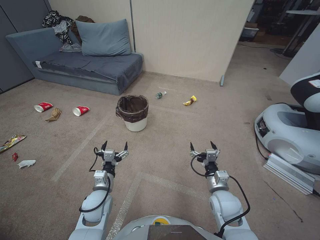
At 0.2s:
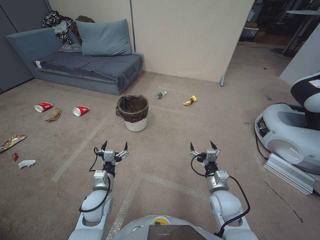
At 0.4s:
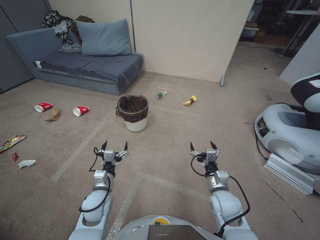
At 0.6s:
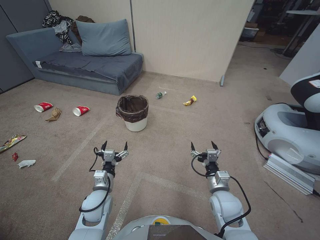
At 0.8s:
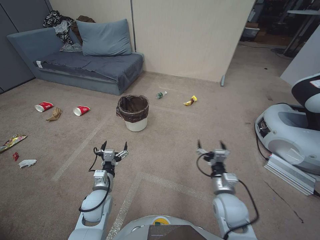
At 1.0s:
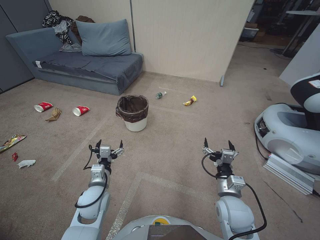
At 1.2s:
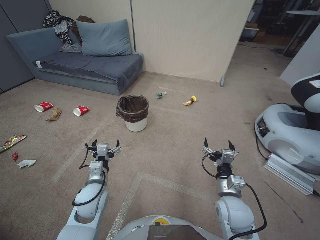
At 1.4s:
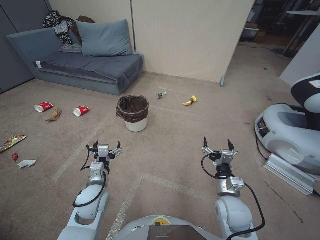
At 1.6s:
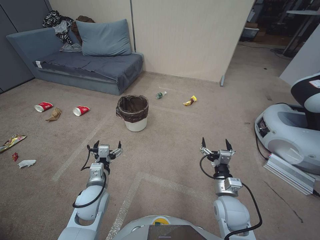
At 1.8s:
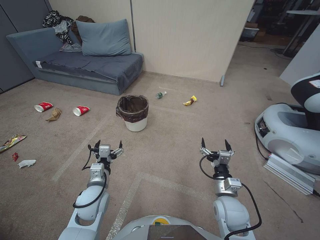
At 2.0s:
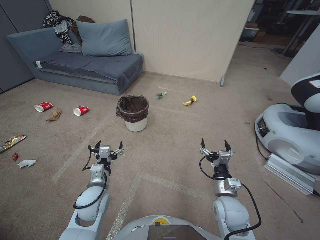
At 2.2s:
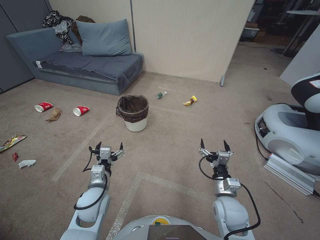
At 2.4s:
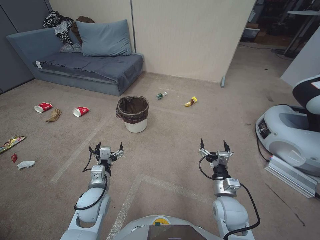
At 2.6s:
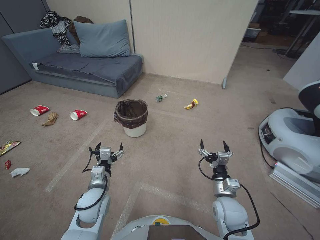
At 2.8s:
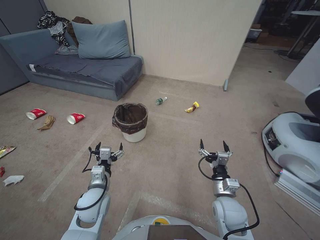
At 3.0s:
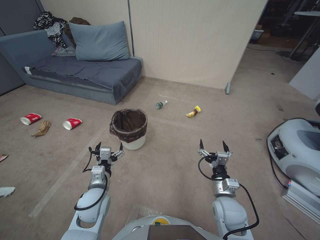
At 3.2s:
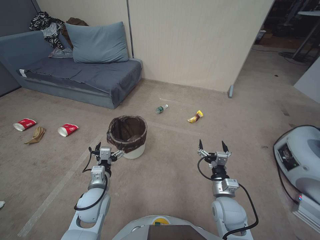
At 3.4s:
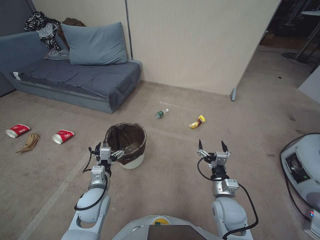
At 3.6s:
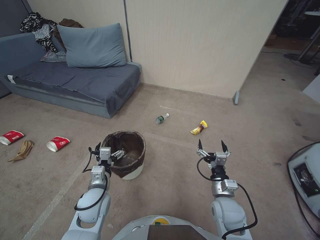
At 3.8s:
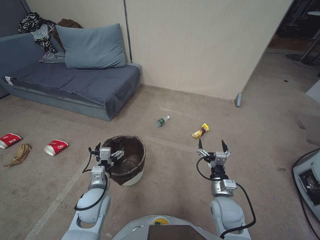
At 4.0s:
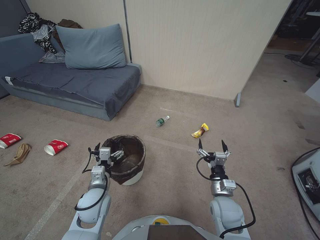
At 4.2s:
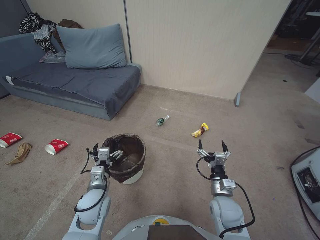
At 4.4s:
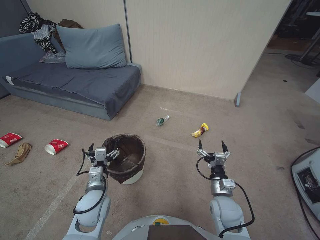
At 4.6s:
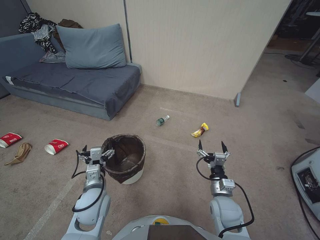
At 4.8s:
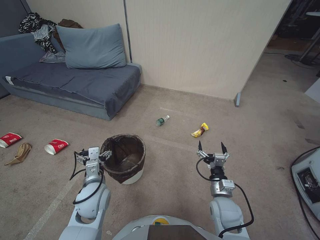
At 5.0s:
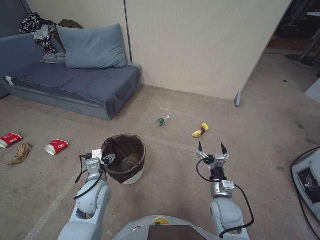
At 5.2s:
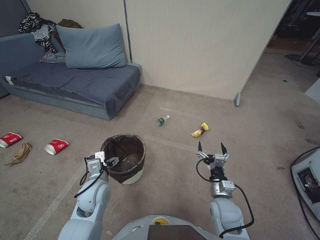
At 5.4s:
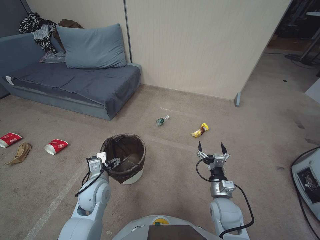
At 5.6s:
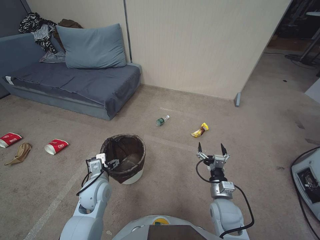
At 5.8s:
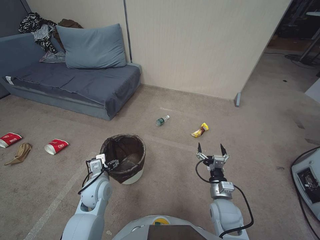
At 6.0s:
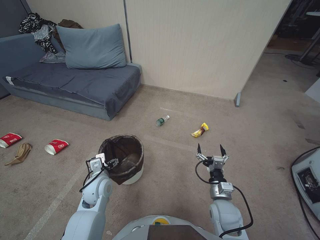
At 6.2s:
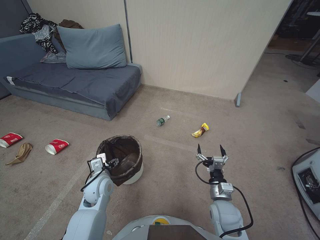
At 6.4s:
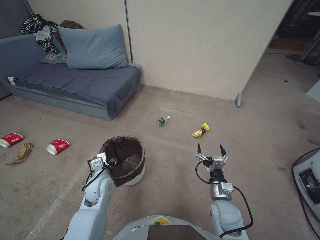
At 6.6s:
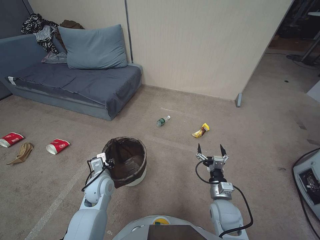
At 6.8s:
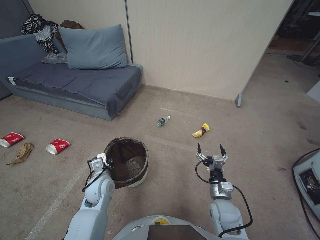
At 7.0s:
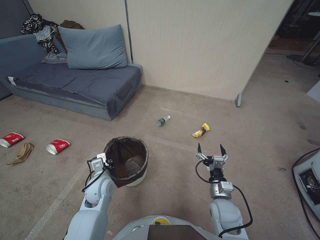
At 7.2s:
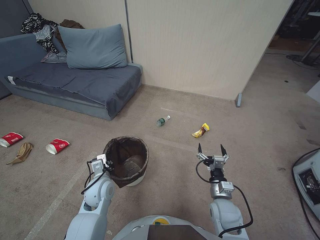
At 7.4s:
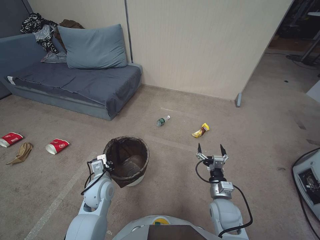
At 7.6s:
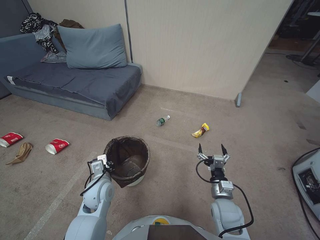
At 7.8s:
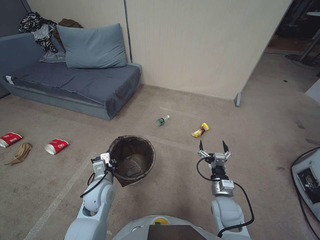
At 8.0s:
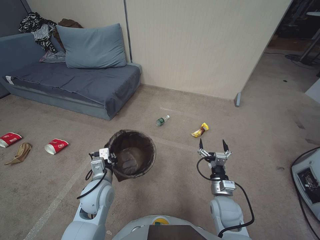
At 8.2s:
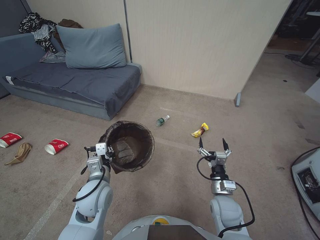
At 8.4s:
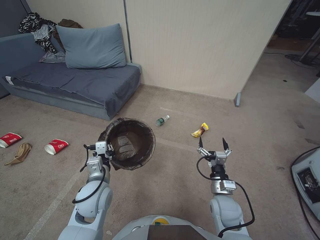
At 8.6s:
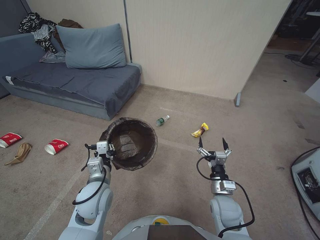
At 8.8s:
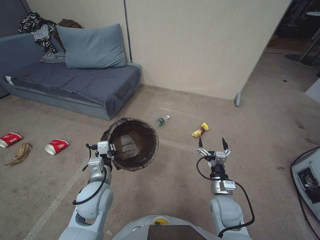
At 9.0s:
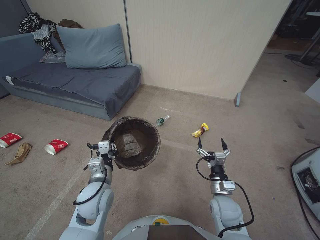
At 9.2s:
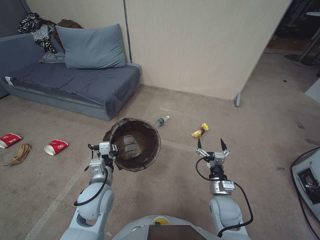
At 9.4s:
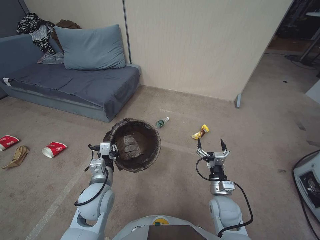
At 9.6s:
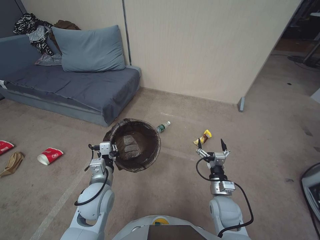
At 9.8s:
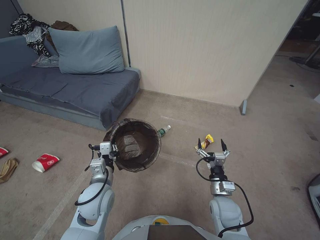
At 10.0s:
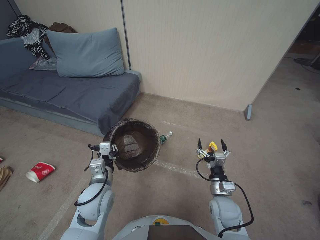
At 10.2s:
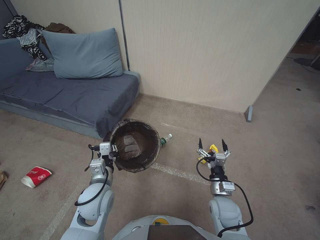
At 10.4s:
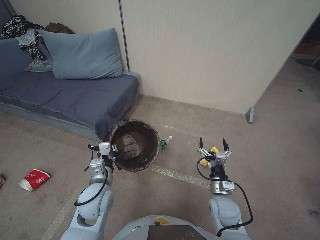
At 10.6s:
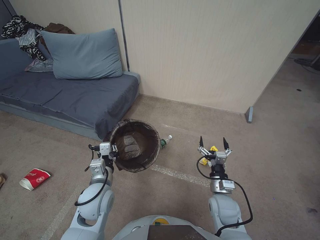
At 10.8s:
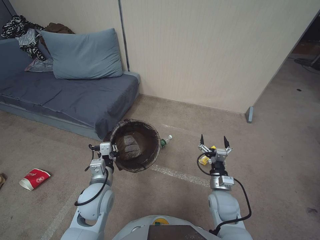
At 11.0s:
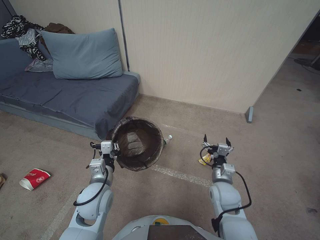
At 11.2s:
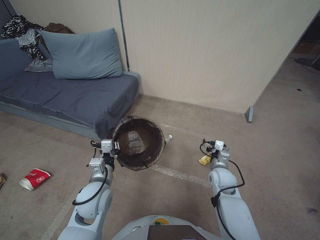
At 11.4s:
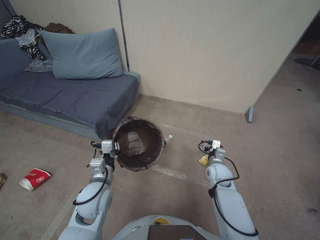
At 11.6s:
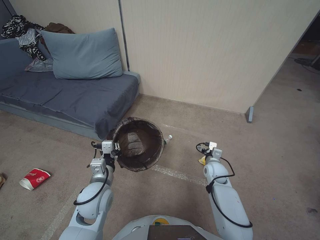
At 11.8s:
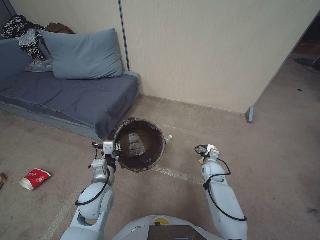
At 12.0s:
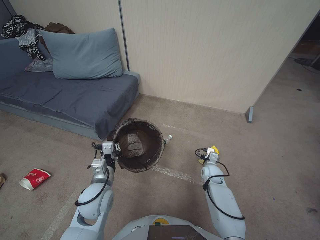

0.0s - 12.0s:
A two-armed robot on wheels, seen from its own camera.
Task of the whole recording: Pick up the trash bin, then pick up the garbage from the floor and place it into the trash bin.
4.4s - 6.0s: The left gripper travels forward by approximately 5 cm.
6.0s - 7.6s: The left gripper closes.
7.6s - 9.0s: The left gripper shifts approximately 5 cm upward.
10.4s - 12.0s: The right gripper travels forward and downward by about 15 cm.

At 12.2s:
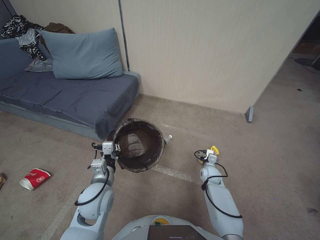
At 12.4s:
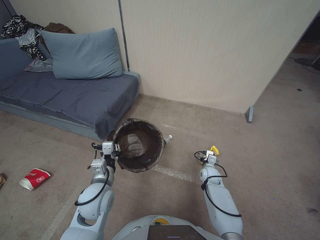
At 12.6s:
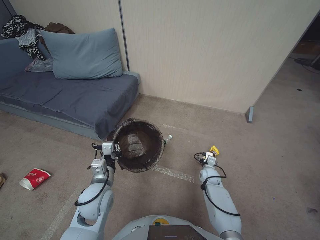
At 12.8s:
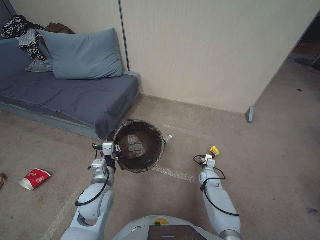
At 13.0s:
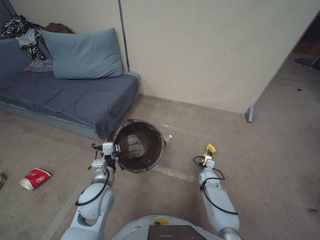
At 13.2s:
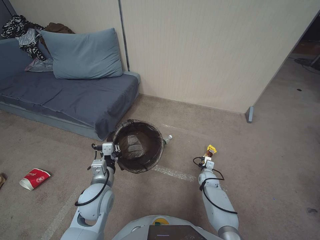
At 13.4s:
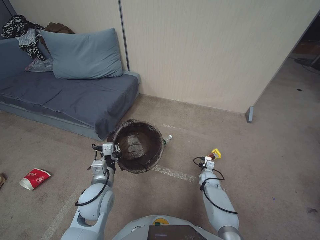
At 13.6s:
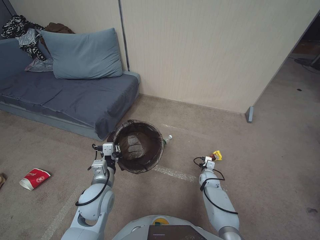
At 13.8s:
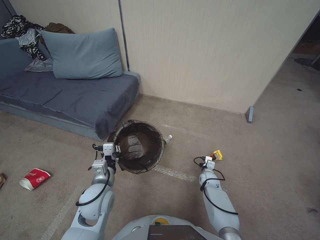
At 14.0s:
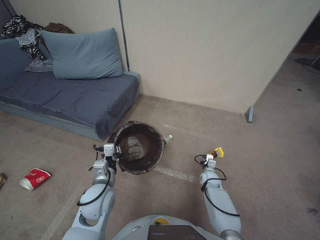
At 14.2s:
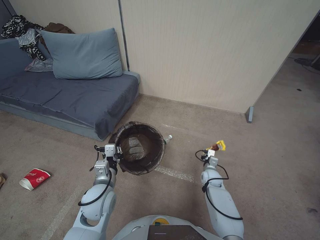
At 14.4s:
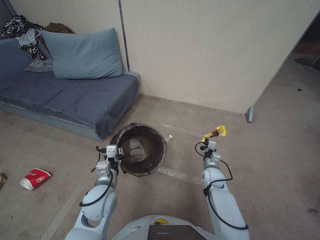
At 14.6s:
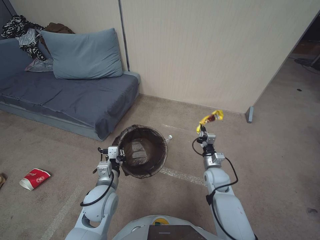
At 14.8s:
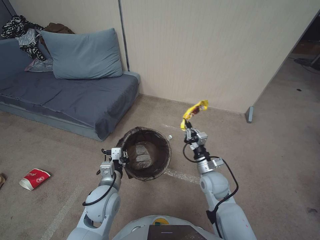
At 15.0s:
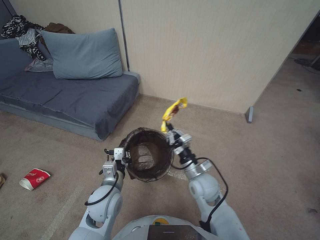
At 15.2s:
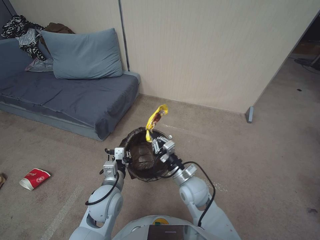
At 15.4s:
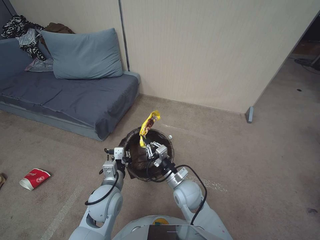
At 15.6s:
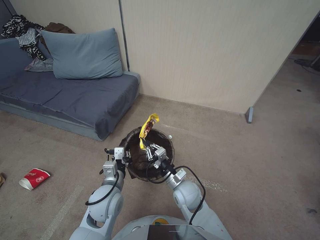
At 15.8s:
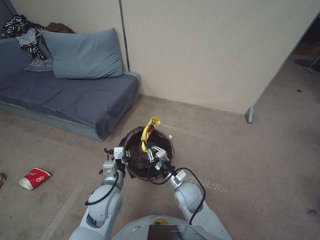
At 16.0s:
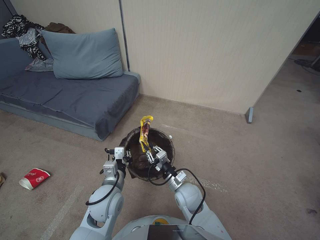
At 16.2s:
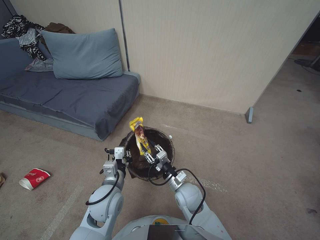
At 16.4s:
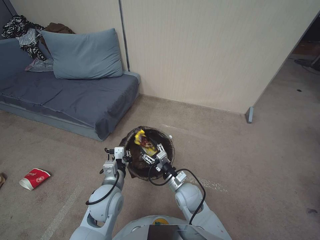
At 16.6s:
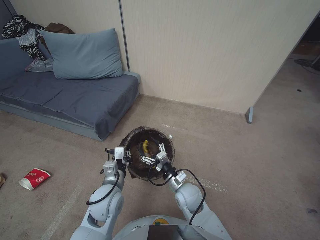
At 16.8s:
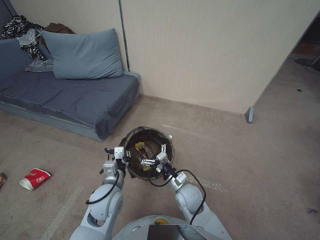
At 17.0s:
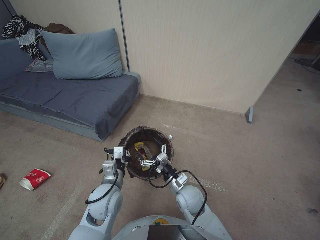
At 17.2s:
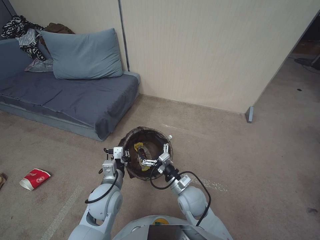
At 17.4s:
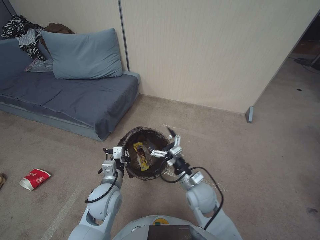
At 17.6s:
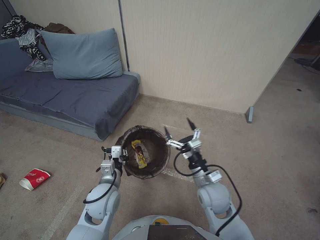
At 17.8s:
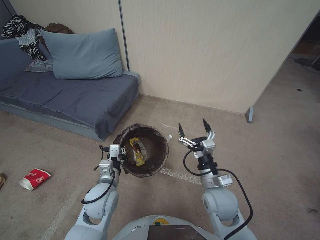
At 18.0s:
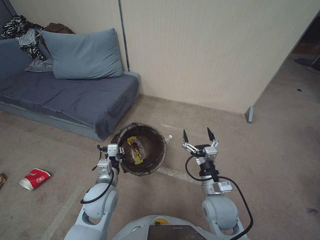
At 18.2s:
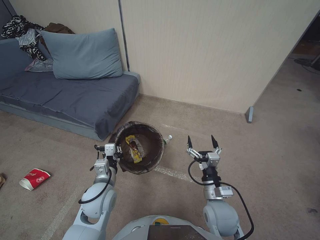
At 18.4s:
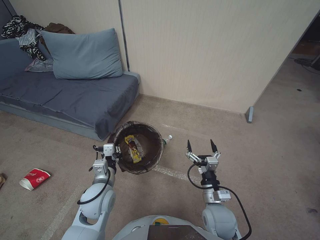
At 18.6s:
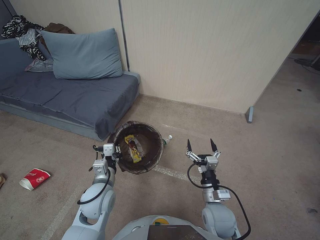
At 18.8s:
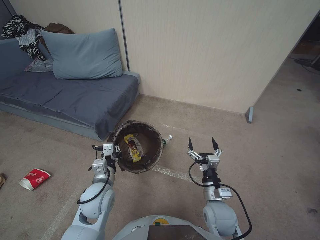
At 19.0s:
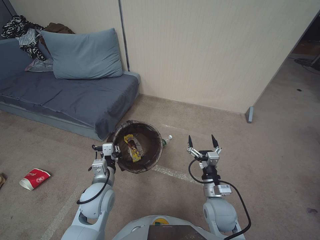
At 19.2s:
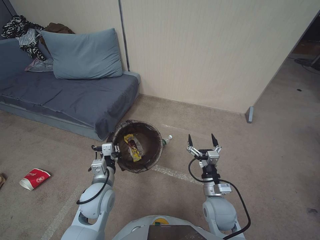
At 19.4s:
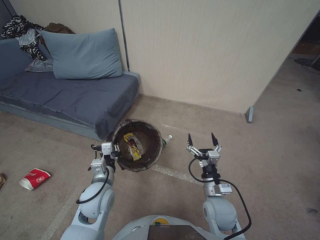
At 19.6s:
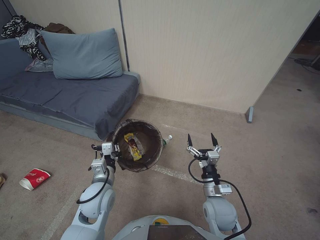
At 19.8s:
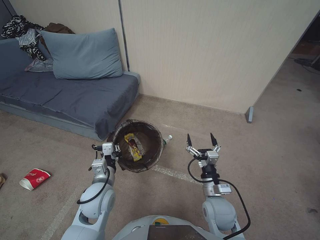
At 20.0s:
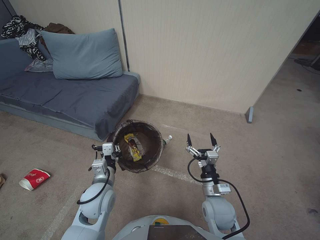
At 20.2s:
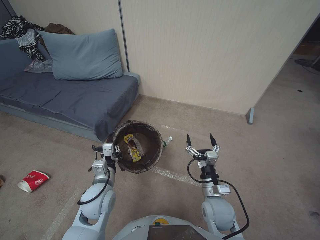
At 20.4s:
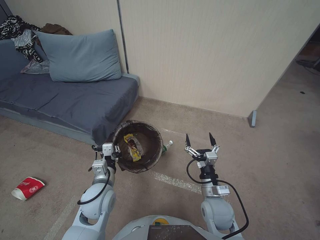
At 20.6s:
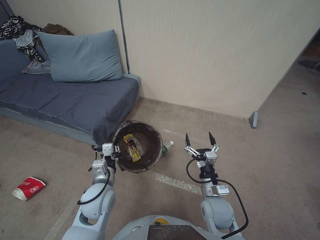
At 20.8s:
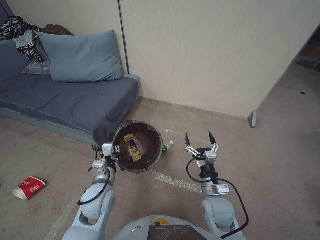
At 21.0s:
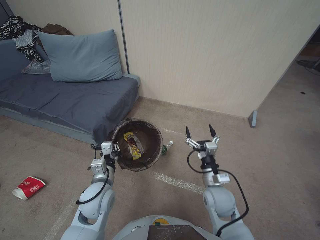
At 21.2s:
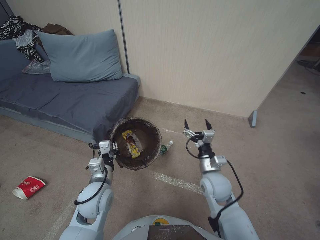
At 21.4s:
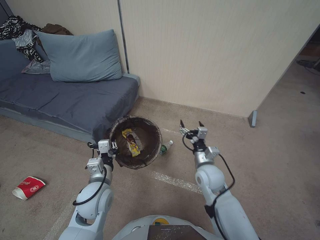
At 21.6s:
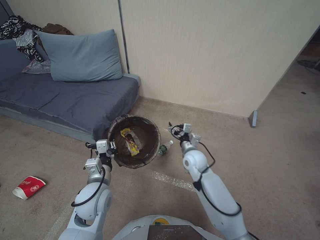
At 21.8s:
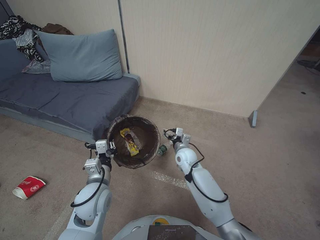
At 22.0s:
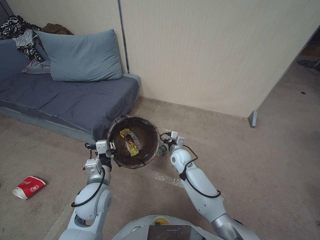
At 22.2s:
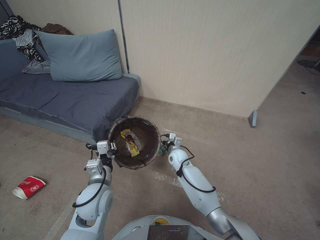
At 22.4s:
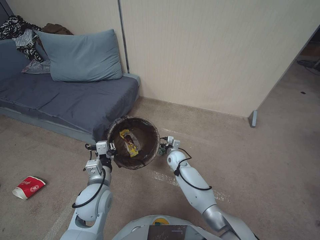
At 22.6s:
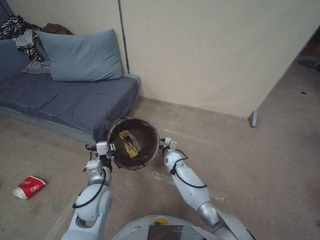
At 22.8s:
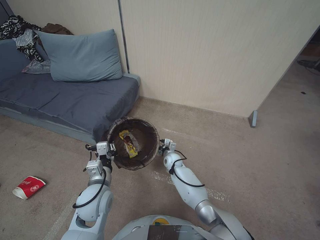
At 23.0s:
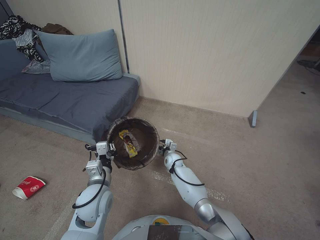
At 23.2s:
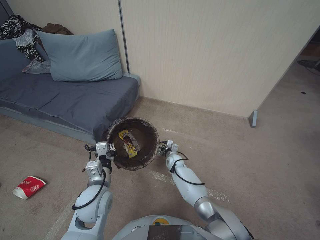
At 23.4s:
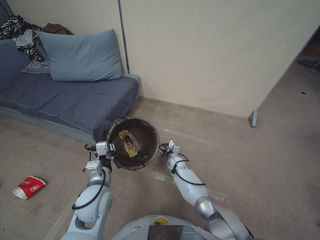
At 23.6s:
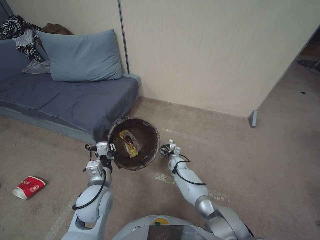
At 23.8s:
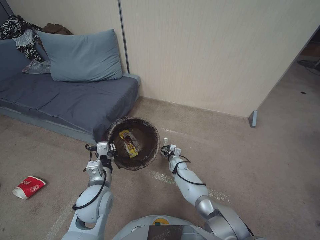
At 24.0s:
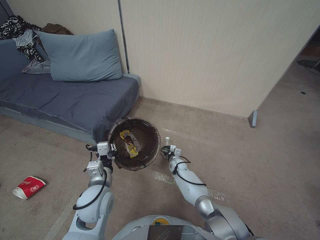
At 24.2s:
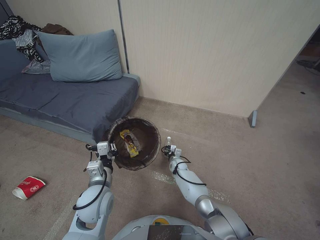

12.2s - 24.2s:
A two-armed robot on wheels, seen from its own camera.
Task of the whole recording: Pick up the trash bin, then pick up the garbage from the floor and place it into the trash bin.
12.2s - 13.8s: The right gripper travels downward by approximately 5 cm, and closes its fingers.
13.8s - 15.2s: The right gripper goes roughly 20 cm upward.
15.2s - 16.6s: The right gripper travels to the left and backward by approximately 15 cm, and opens.
16.6s - 18.2s: The right gripper is displaced to the right and upward by roughly 10 cm.
18.2s - 21.2s: There are only small adjustments of the grippers.
21.2s - 22.6s: The right gripper travels forward, downward and to the left by some 25 cm.
22.6s - 24.2s: The right gripper moves downward, about 10 cm, and closes.
